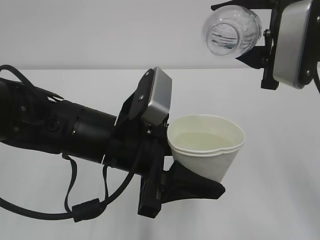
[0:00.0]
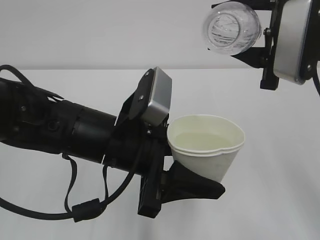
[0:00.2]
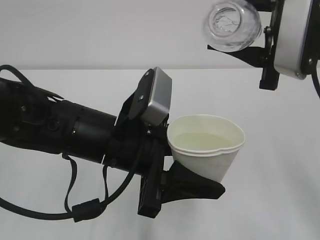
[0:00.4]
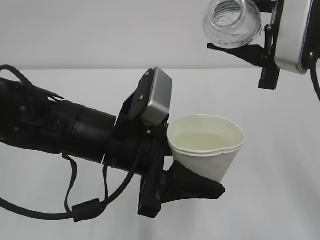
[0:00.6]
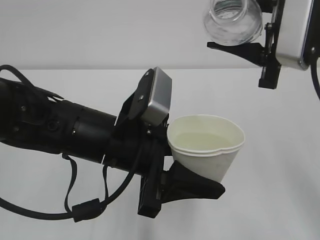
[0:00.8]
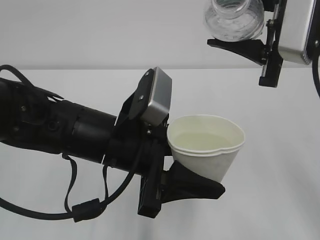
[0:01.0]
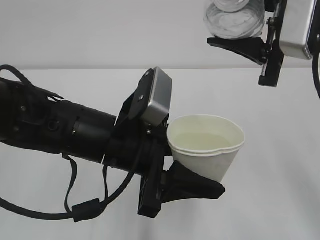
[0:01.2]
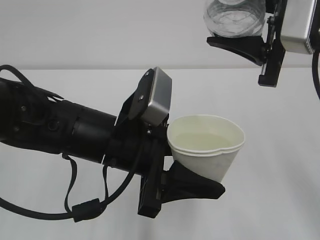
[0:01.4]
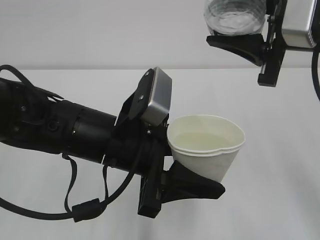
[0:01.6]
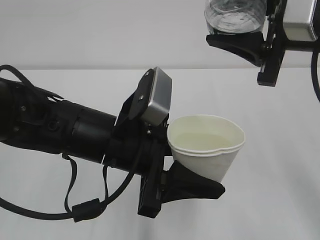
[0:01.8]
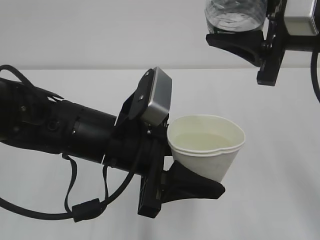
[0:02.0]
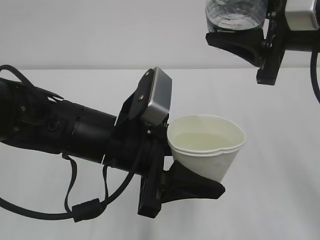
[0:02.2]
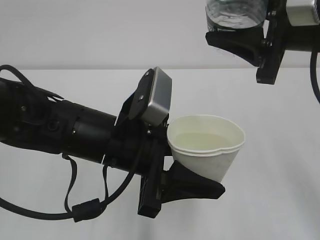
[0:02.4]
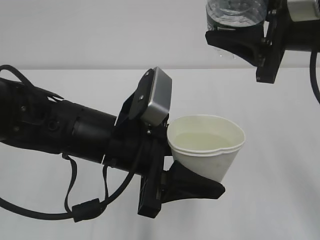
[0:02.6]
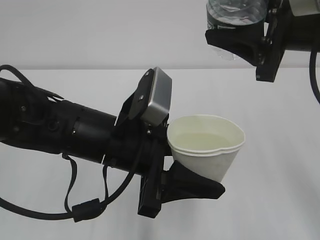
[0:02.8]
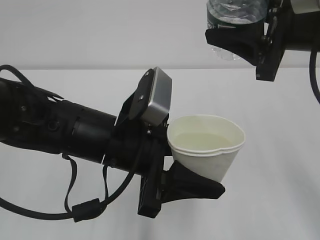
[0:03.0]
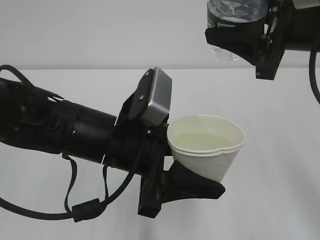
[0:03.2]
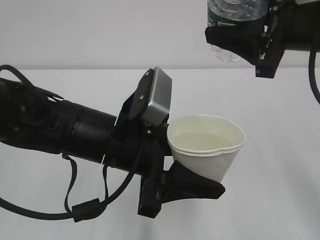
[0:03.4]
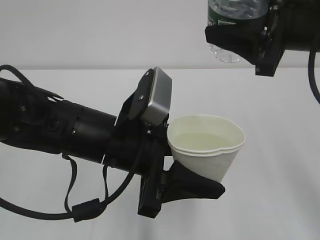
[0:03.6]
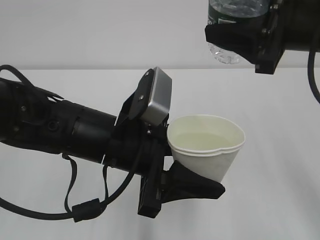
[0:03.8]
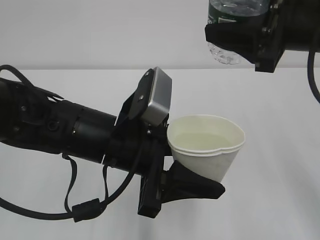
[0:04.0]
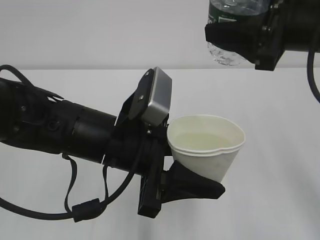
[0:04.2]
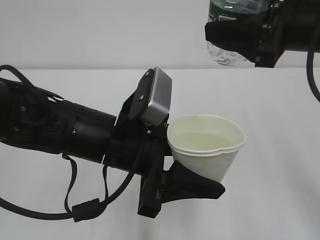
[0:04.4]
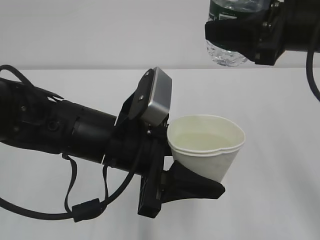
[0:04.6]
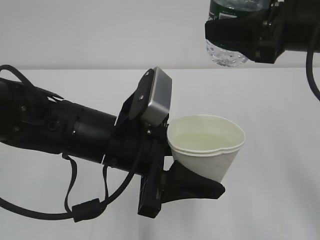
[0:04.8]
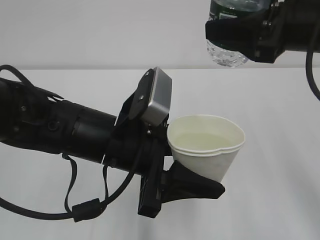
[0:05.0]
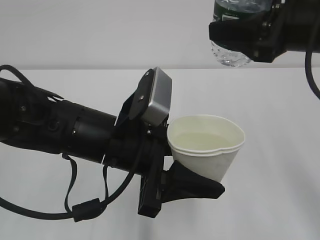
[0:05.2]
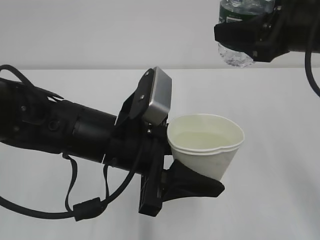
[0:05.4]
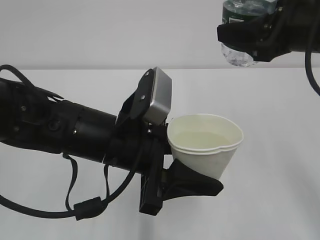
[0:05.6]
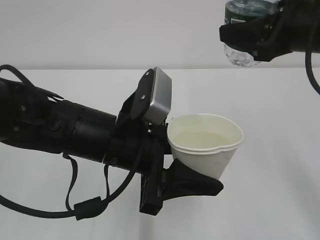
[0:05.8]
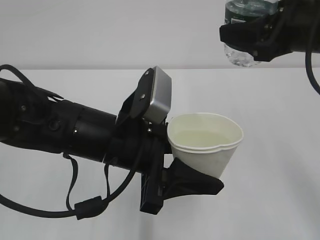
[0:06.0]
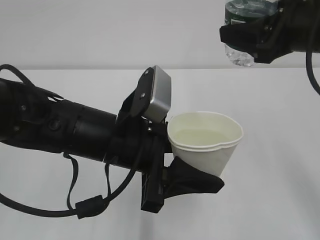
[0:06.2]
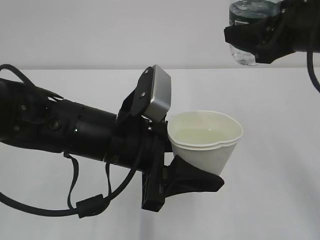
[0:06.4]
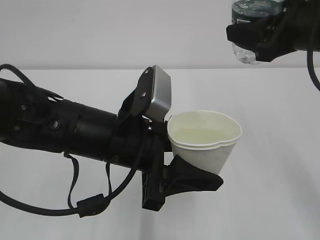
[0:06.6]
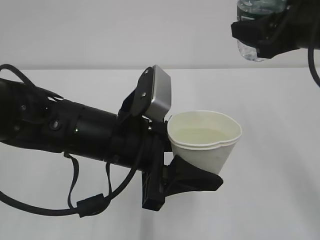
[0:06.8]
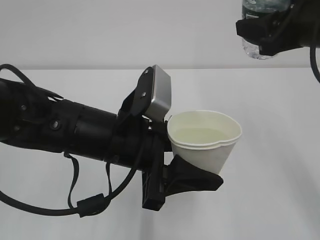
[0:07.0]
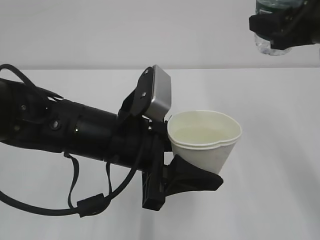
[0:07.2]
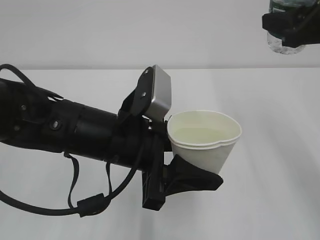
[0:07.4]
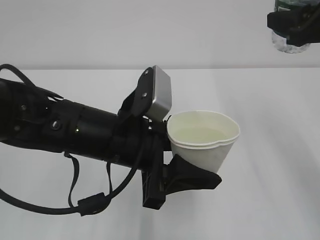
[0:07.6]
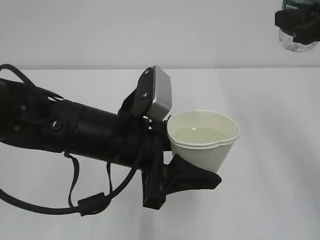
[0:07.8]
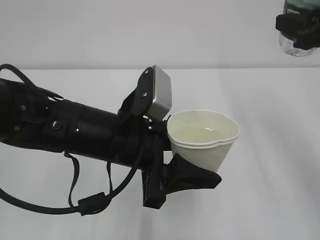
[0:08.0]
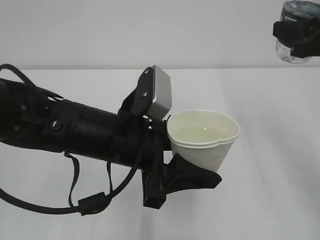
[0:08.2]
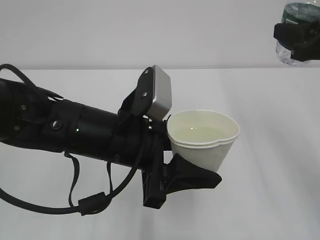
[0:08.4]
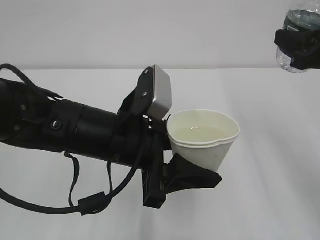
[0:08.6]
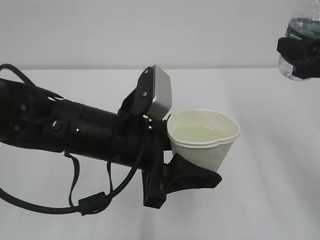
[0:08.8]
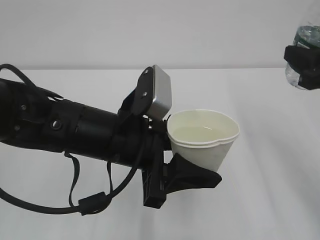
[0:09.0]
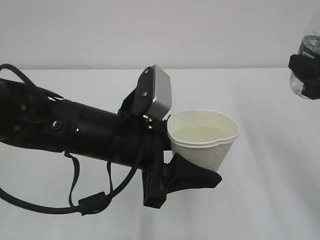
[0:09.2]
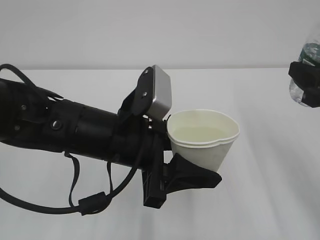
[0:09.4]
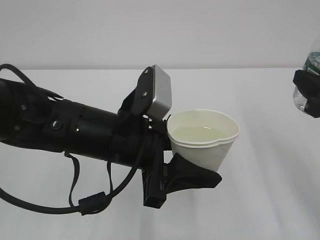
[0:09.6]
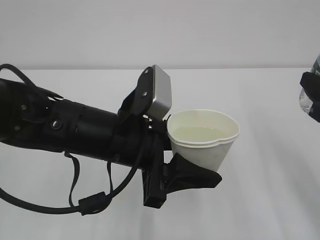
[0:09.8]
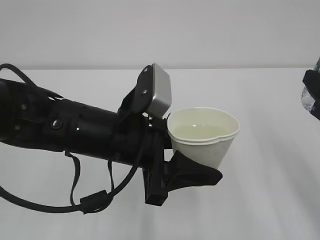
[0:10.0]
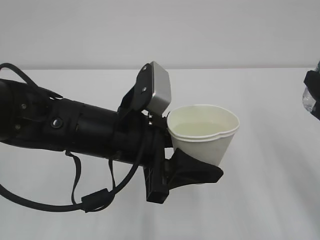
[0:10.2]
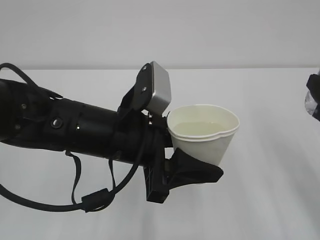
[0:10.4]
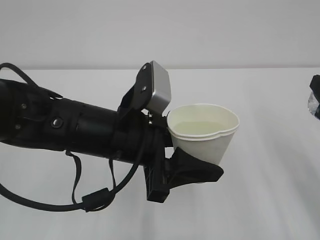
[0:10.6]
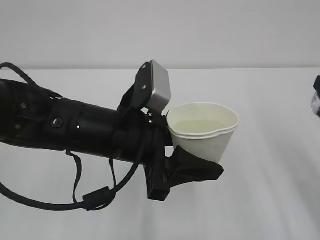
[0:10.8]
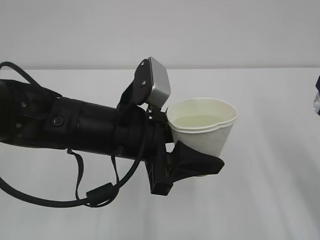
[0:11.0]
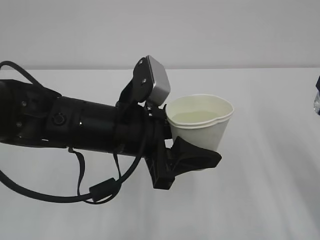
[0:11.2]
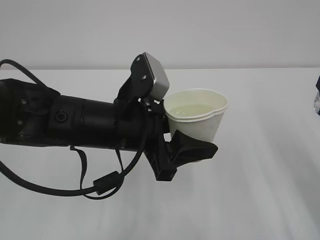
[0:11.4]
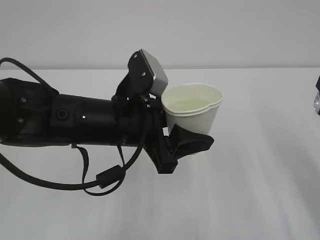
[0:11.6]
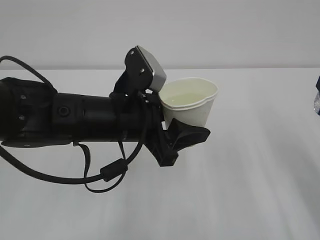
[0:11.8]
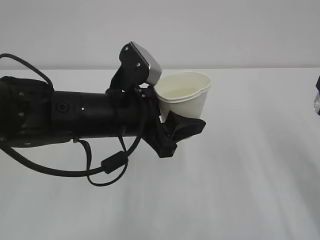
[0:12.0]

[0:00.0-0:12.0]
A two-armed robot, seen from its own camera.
0:01.6 to 0:03.0: The grippers stay close to where they were, moving slightly.
0:04.4 to 0:06.0: The grippers make only small movements.
0:06.0 to 0:07.6: The right gripper goes about 5 cm to the right.
0:07.6 to 0:09.0: The right gripper shifts roughly 5 cm downward.
0:09.0 to 0:10.4: The right gripper shifts by approximately 5 cm.

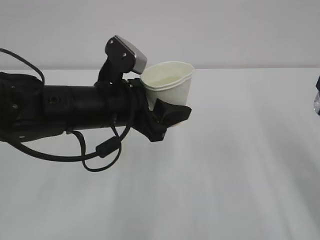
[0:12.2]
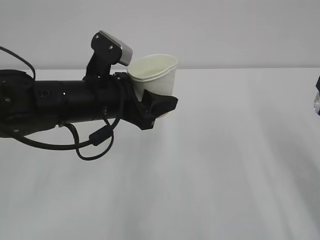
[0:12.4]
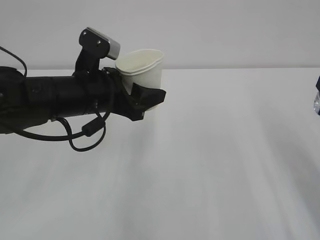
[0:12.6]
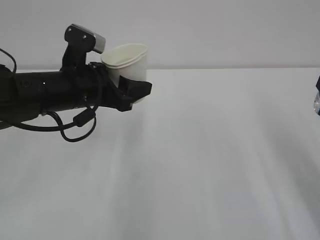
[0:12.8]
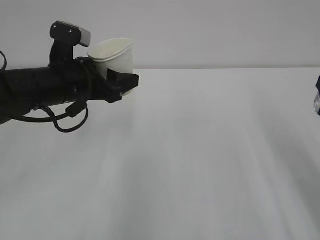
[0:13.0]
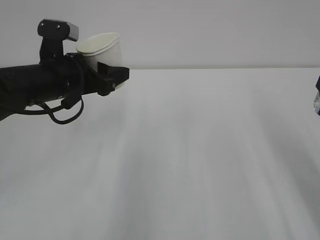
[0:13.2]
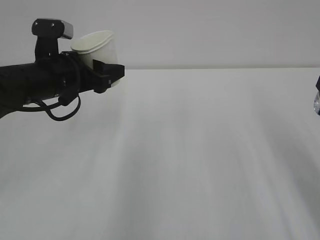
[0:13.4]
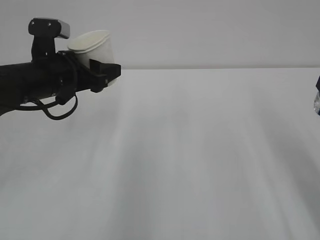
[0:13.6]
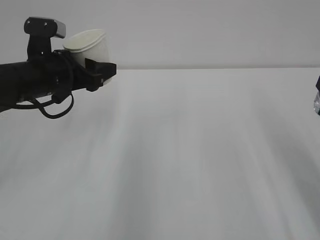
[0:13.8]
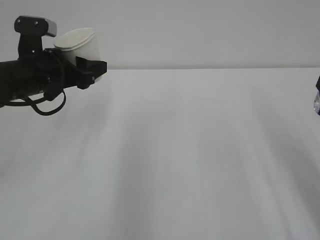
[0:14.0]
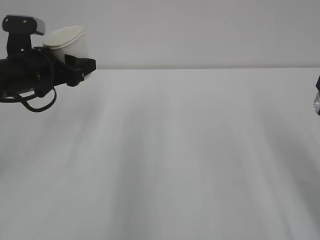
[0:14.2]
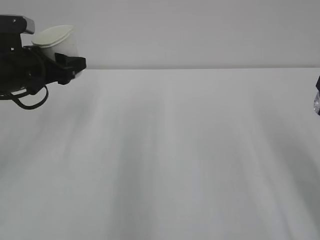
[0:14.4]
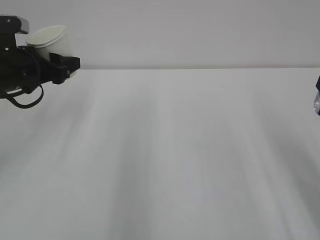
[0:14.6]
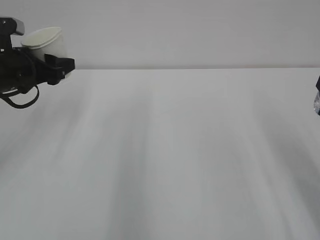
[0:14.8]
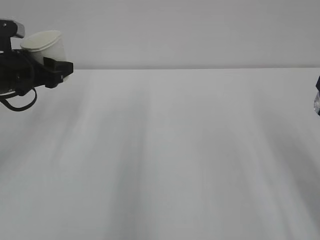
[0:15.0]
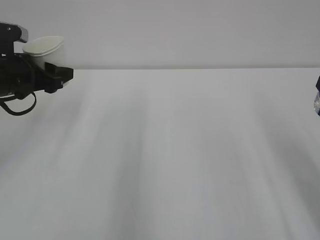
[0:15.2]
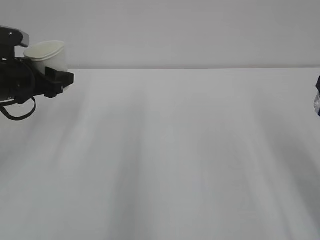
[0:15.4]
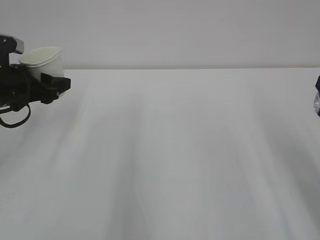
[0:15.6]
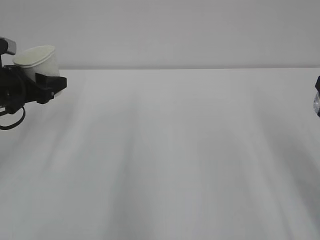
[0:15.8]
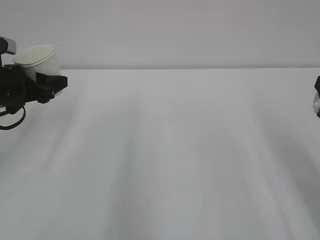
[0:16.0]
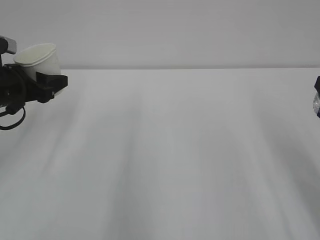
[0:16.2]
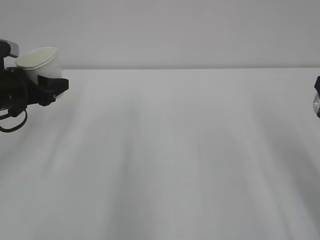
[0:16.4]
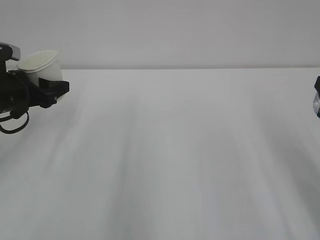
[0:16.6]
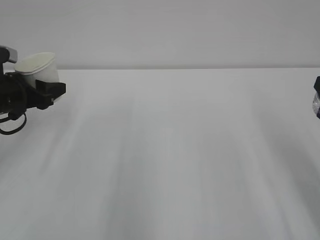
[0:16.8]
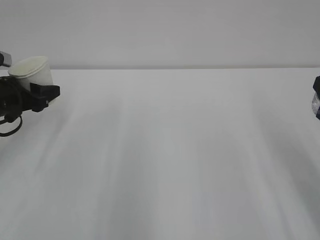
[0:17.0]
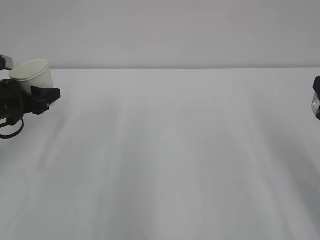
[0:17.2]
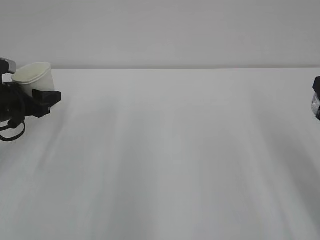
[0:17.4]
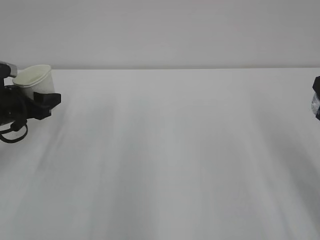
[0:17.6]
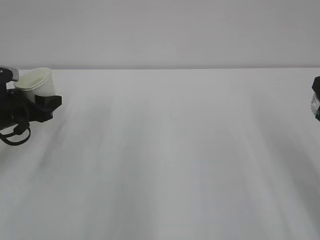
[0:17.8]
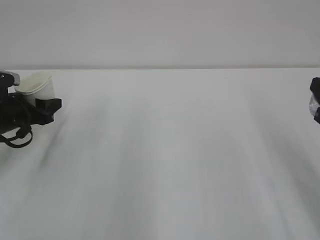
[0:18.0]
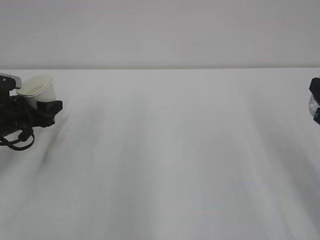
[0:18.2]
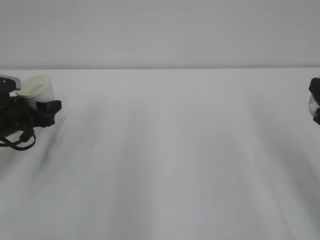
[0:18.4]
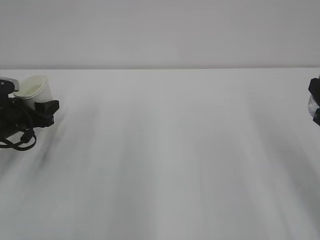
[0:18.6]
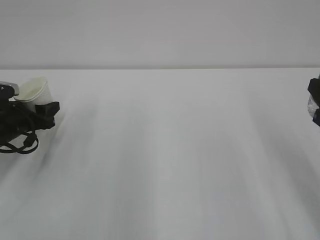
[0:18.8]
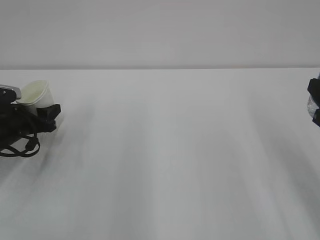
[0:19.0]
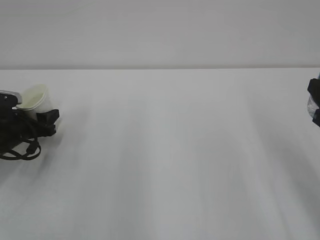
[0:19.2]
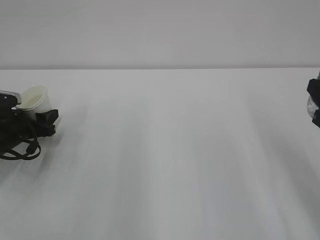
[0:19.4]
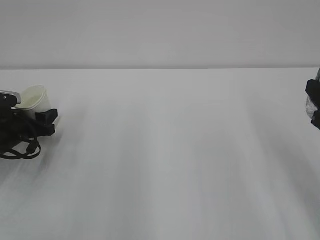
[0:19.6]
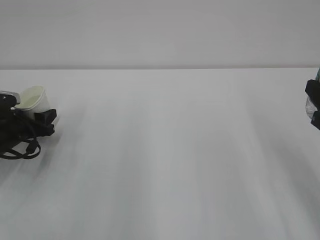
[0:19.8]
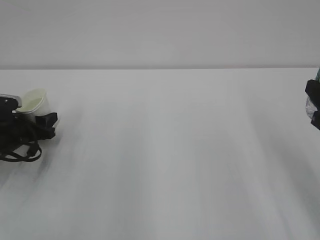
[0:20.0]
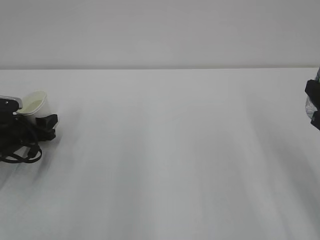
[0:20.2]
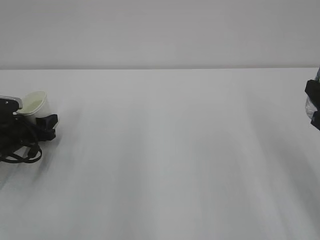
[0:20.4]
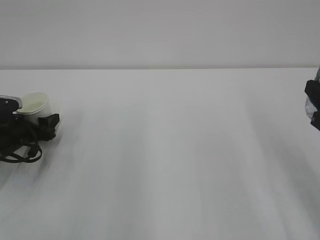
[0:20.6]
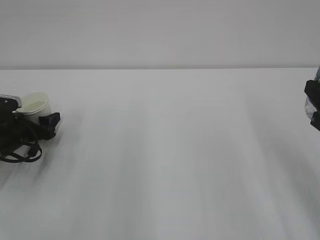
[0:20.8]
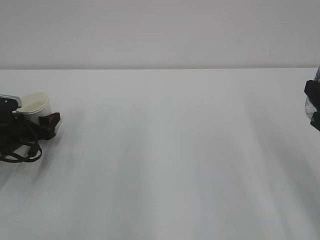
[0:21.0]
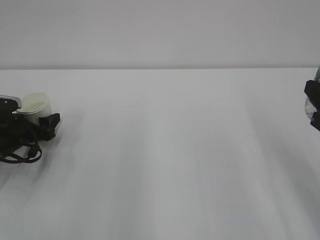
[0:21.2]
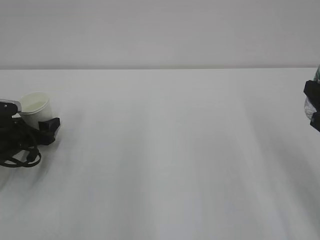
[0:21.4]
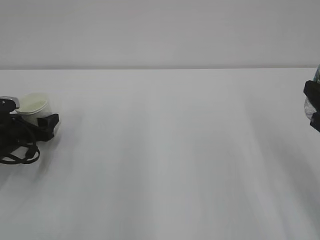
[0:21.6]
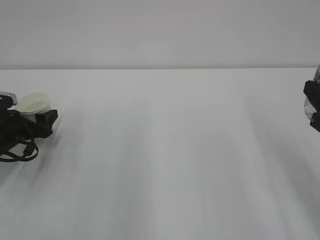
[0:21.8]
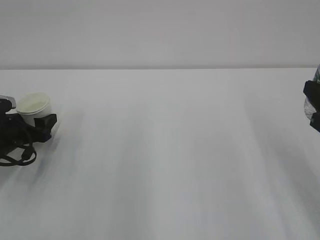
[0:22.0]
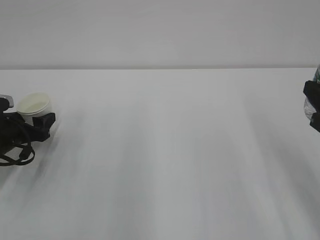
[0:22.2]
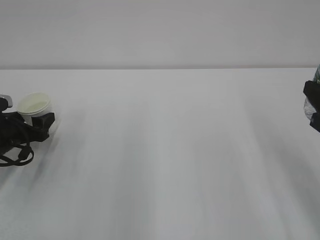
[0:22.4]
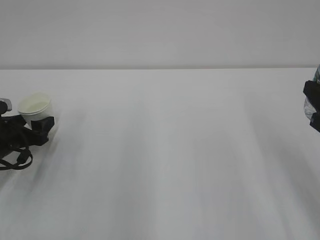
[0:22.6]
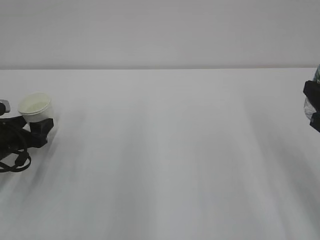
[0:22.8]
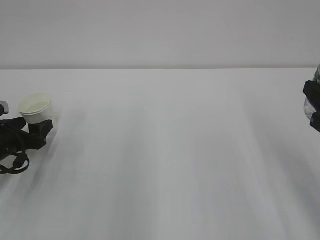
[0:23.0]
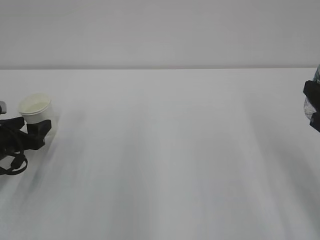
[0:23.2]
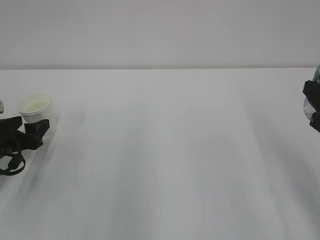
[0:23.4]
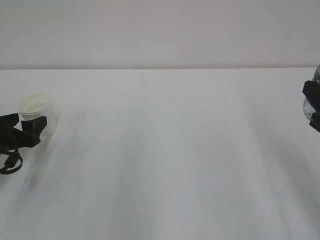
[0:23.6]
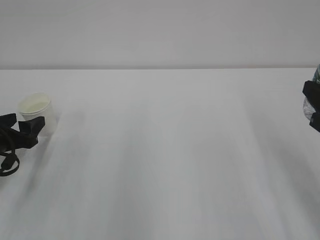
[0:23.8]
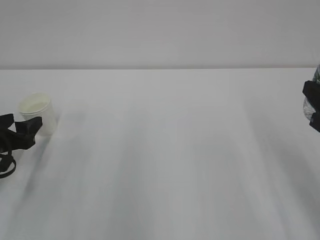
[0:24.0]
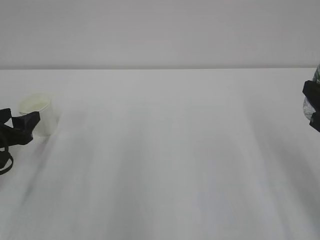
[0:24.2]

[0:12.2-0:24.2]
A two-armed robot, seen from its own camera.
0:12.2 to 0:13.8: The left gripper heads to the left and forward, covering about 15 cm.
0:13.8 to 0:15.2: The left gripper goes about 5 cm to the left.
0:15.2 to 0:16.6: The grippers make only small movements.
0:16.6 to 0:18.2: The left gripper moves downward, some 5 cm.
0:18.2 to 0:19.8: The grippers move only a little.
0:19.8 to 0:21.2: The left gripper opens up.
0:21.2 to 0:22.6: The grippers move only a little.
0:22.6 to 0:24.2: The left gripper ends up about 5 cm from where it was.
